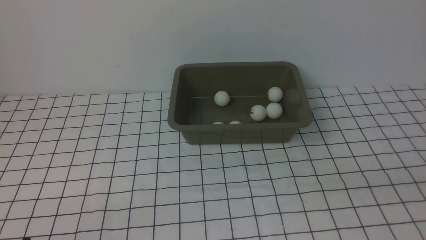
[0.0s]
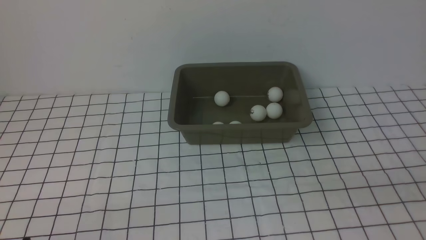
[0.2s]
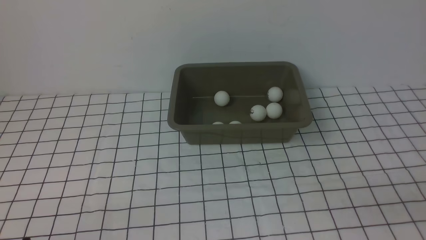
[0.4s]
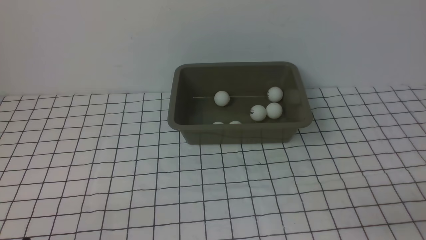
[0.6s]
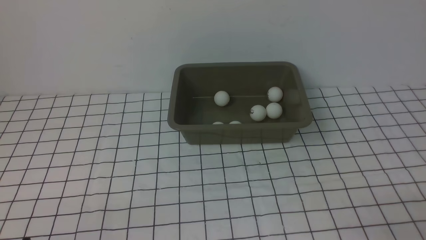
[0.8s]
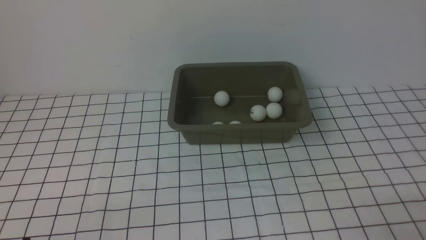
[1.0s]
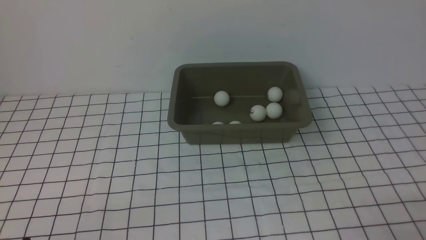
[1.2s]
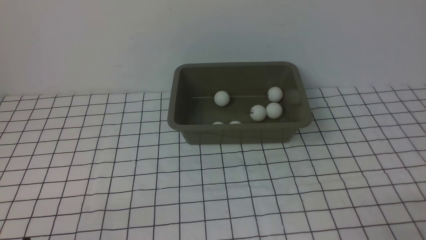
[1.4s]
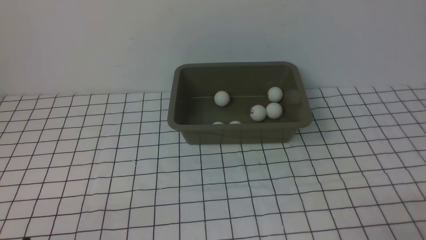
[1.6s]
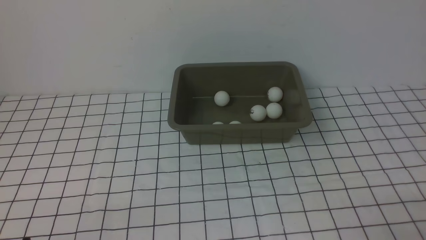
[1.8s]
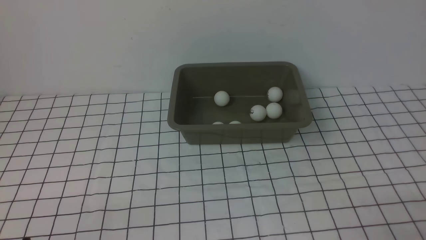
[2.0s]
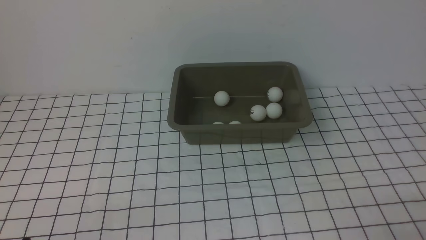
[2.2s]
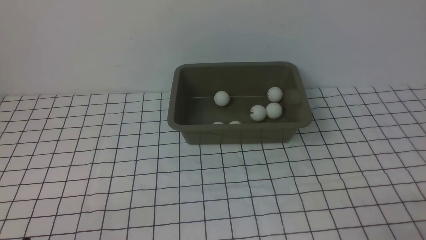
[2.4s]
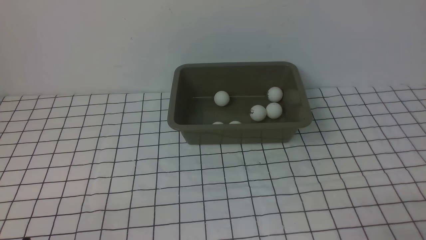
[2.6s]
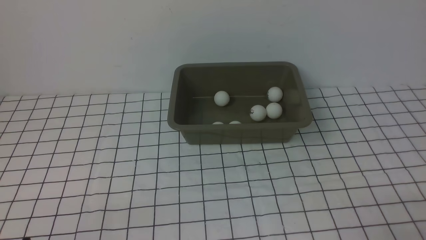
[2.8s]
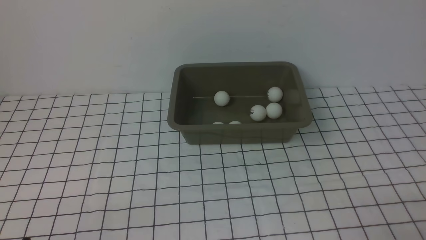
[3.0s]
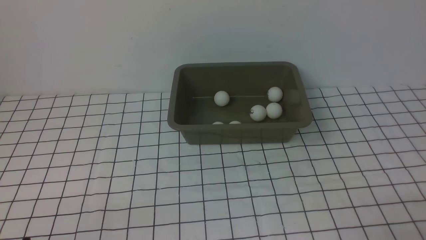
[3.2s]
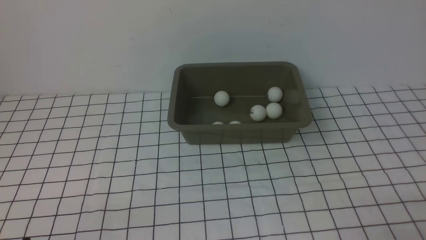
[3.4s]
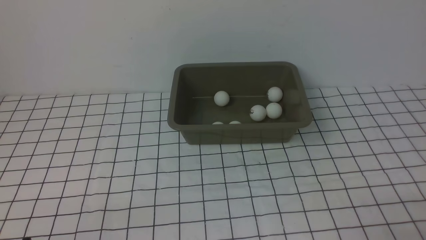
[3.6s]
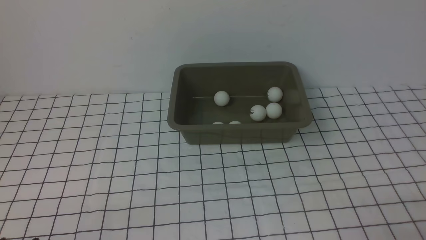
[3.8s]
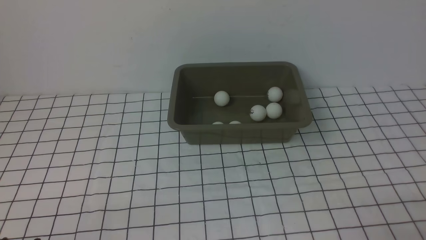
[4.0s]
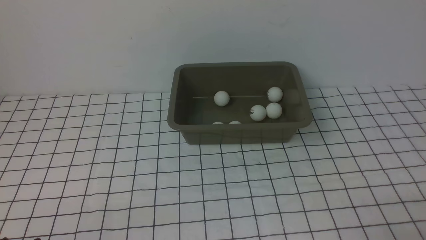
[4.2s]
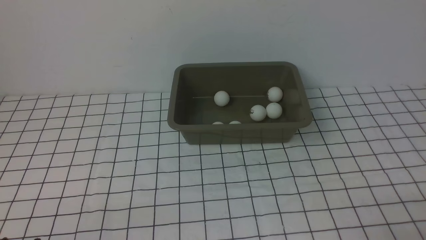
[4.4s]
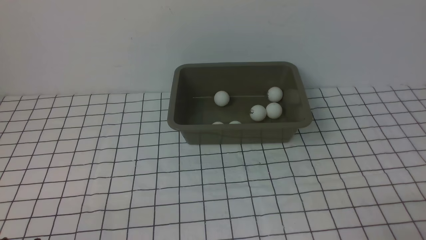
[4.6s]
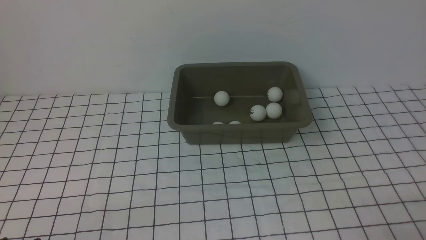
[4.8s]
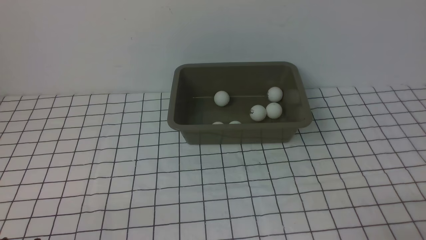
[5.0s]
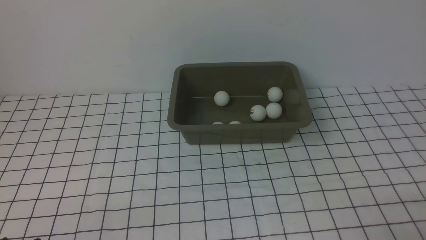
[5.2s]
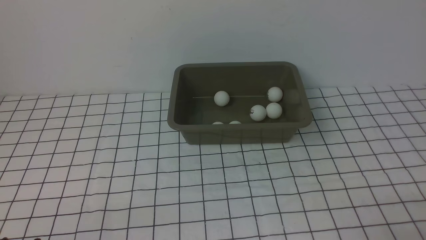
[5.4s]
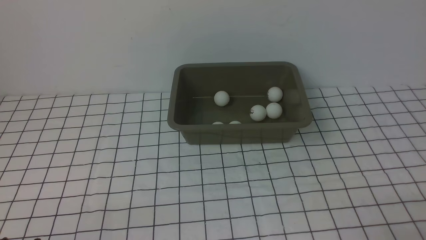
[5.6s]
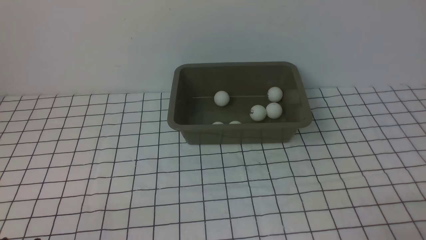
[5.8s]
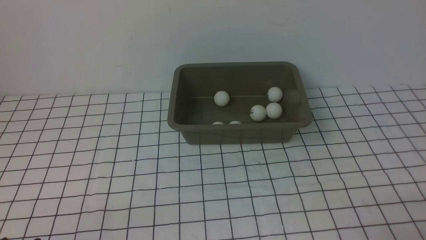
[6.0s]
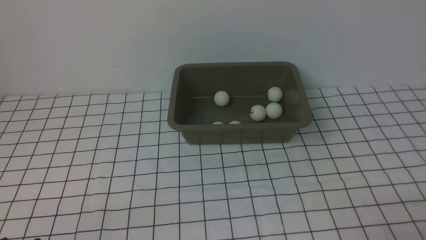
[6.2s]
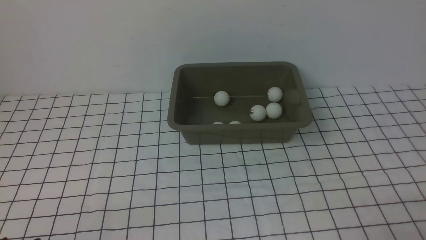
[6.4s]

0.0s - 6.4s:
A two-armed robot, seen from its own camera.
1.6s - 6.4s: The two grippers keep their place.

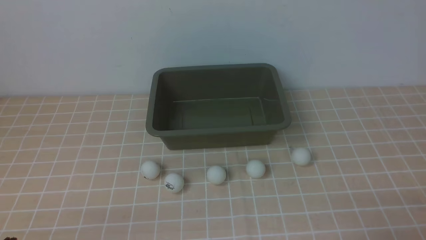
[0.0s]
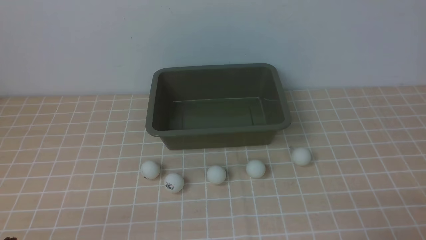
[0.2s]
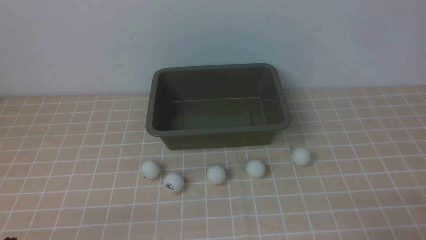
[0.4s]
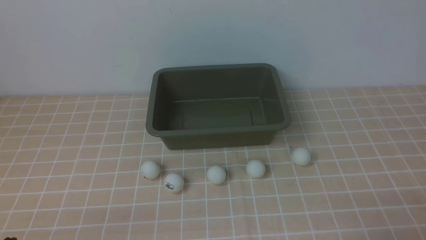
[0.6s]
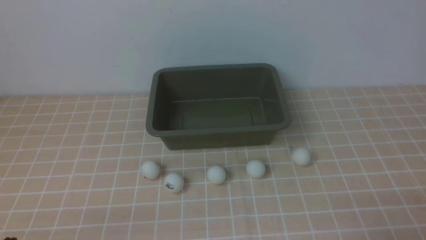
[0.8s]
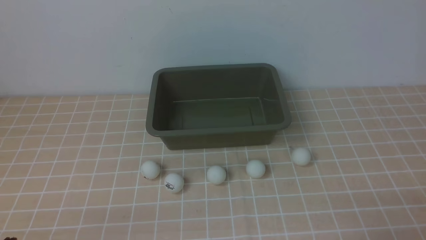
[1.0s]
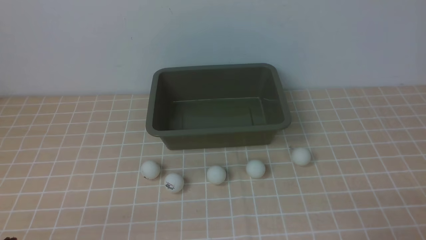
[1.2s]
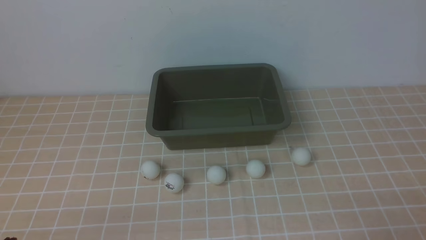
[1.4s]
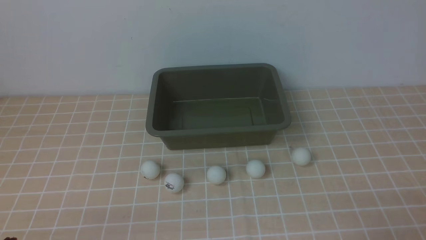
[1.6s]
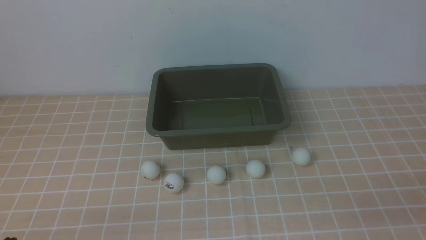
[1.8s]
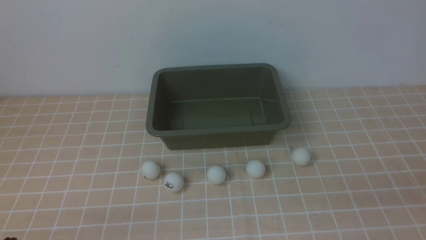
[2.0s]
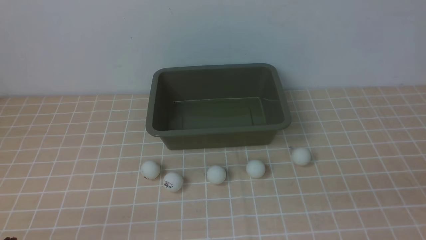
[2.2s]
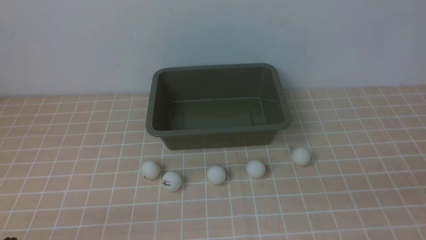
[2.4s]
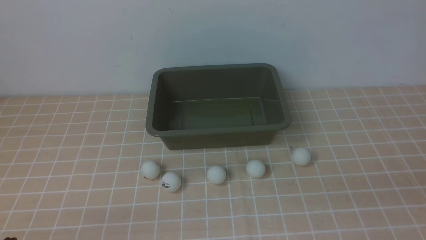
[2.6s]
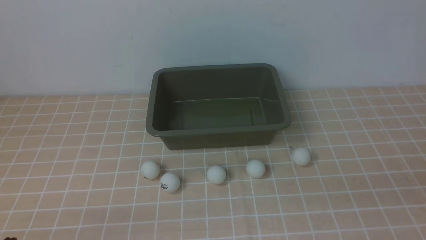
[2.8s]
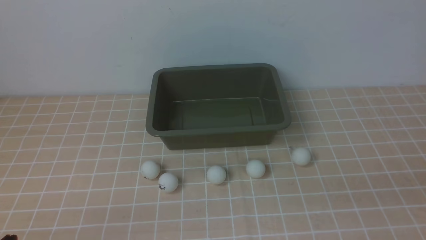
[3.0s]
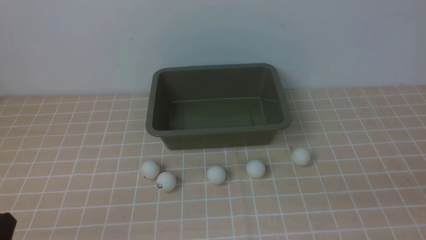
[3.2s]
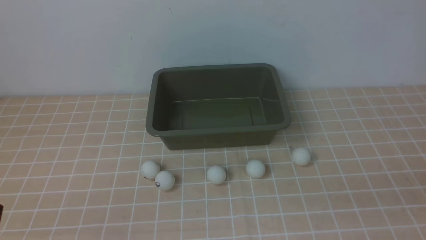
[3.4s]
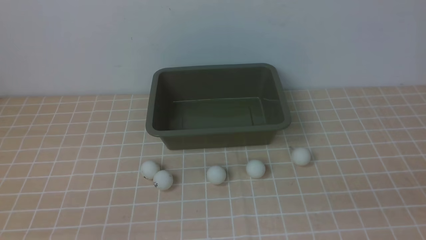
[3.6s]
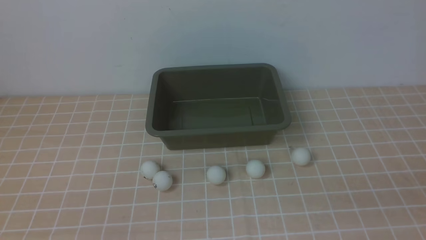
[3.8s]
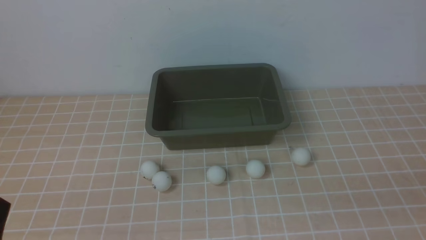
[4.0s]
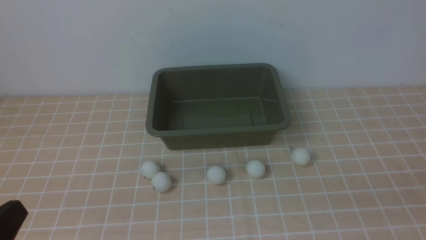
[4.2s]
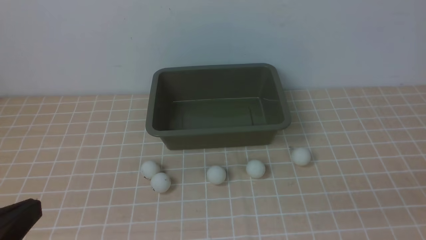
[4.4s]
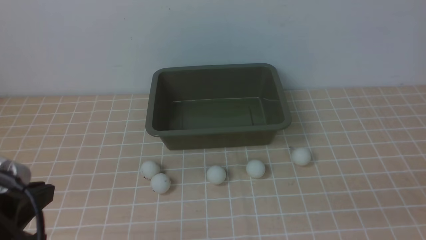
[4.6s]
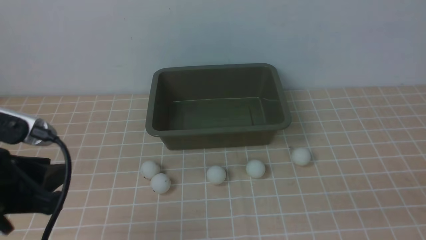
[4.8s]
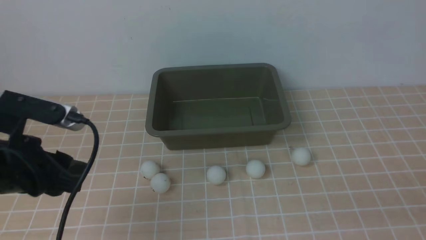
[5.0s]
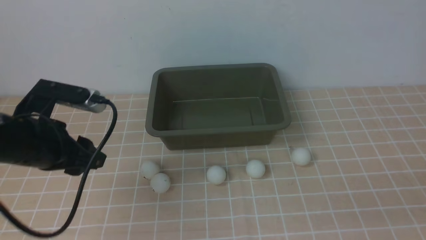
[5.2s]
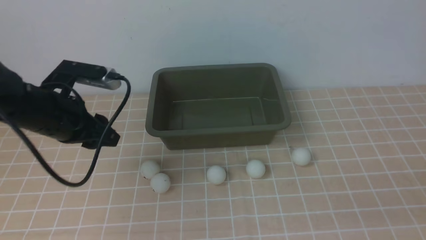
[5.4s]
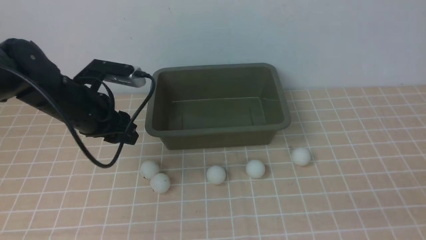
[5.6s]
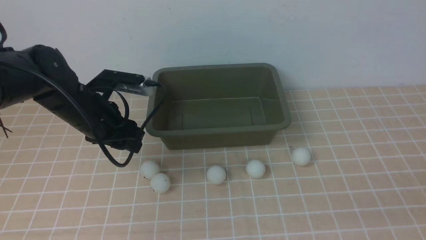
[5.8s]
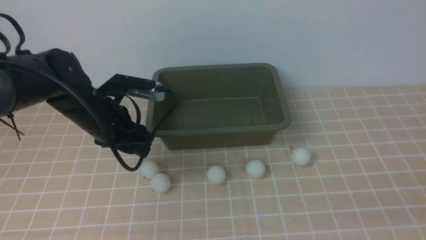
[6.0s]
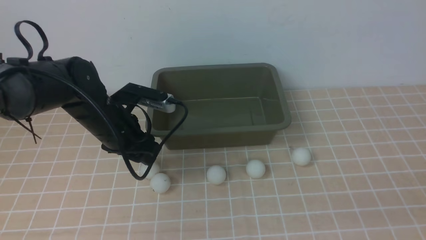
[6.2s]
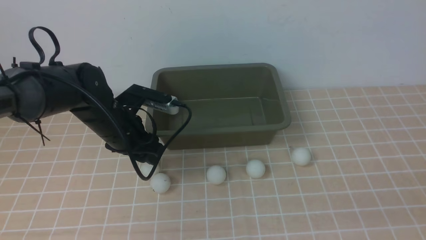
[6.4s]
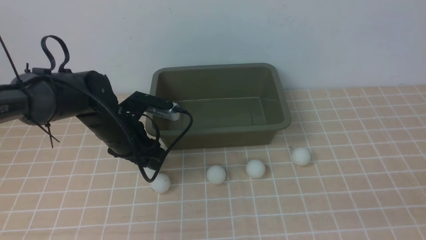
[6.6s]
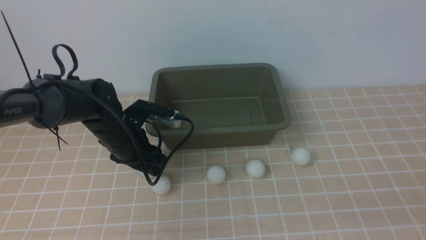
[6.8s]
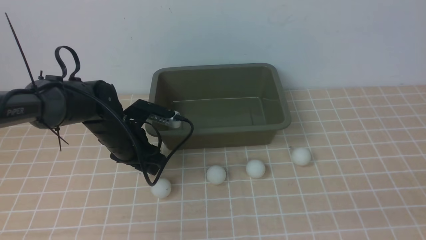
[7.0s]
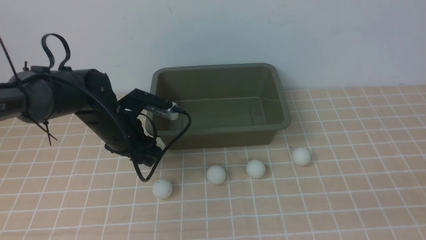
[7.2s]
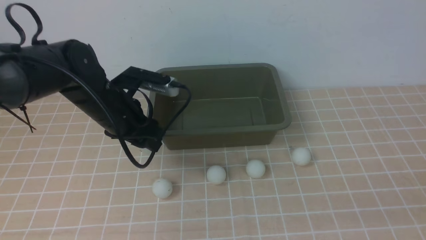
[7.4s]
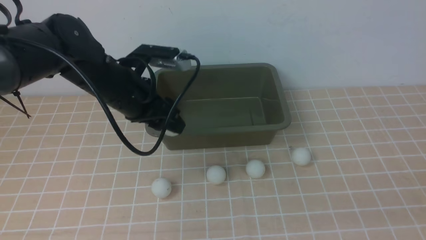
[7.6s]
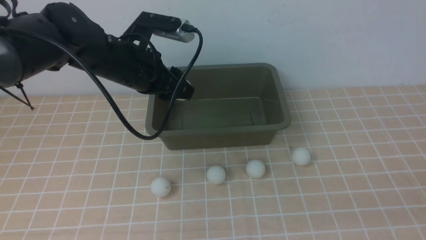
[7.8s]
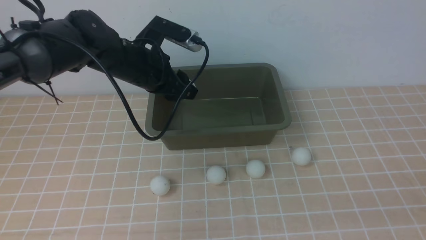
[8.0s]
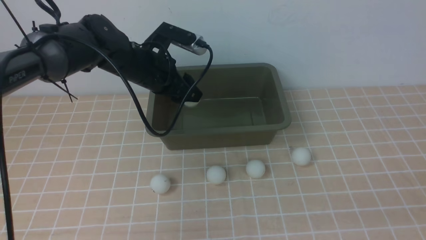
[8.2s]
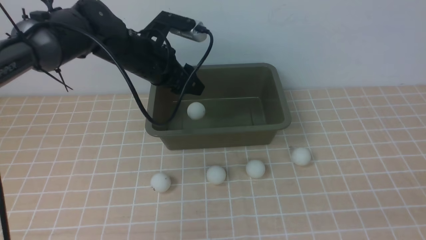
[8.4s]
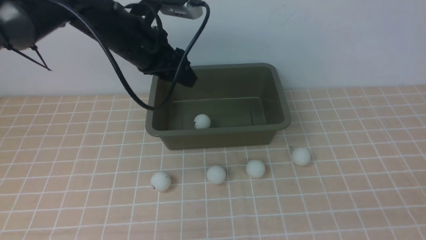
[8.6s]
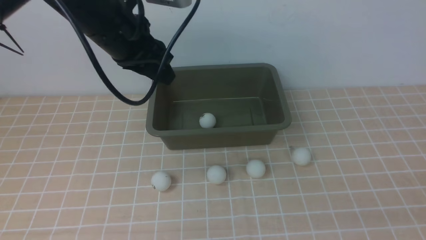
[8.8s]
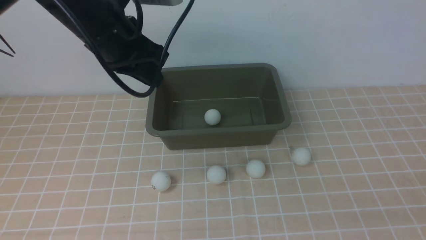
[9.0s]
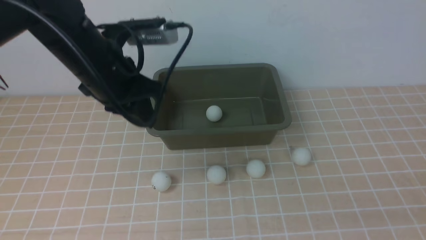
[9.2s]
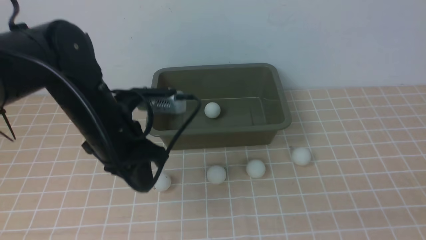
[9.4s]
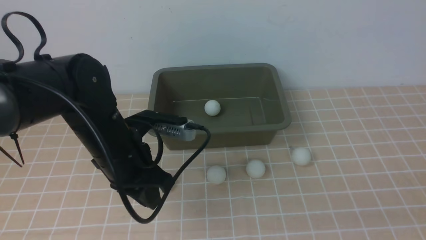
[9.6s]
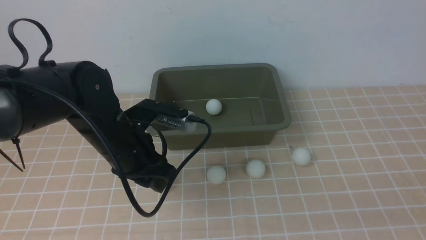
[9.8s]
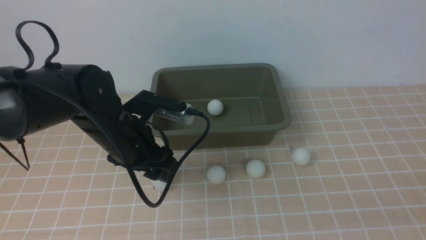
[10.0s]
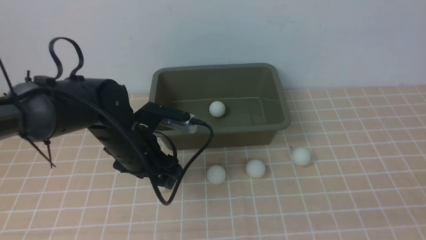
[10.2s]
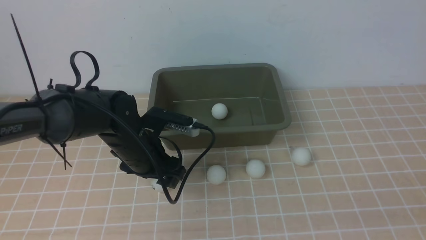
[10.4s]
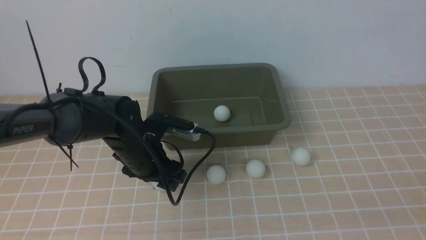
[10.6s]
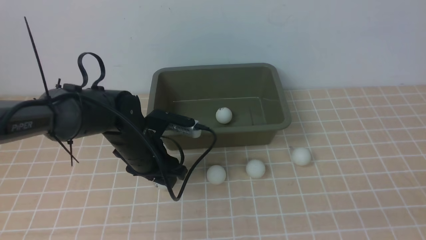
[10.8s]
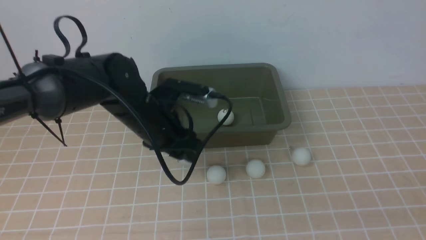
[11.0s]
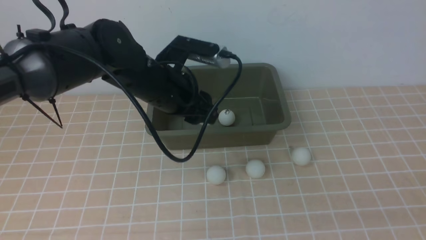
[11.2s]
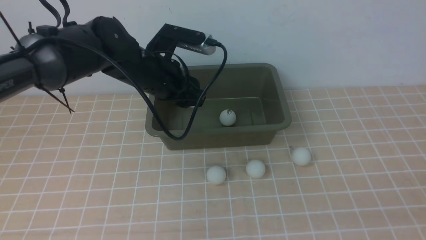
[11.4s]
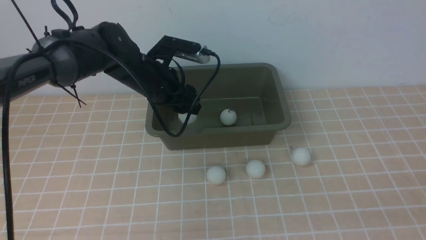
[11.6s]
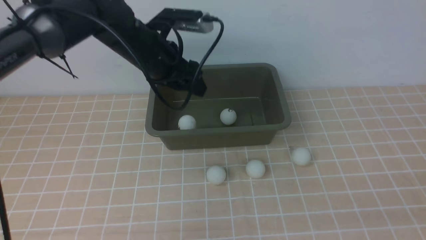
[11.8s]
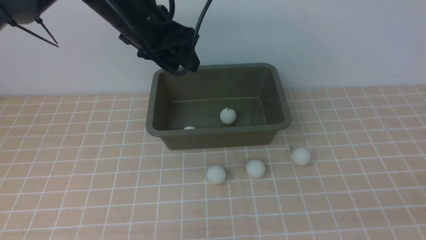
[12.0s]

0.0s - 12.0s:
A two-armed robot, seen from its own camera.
Step, 0.0s - 7.4s: use the left arm to clamp the table tennis ball closest to it.
Step, 7.6s - 8.6s: use the left arm to put the table tennis ball into the box.
Step, 9.0s - 11.2s: use the left arm to clamp the table tennis ball closest to it.
3.0s - 4.4s: The left gripper shifts some 10 cm upward.
4.4s - 6.0s: The left gripper shifts some 30 cm forward, and opens its fingers.
6.0s - 7.6s: The left gripper travels upward by approximately 5 cm.
7.6s - 9.0s: The left gripper shifts about 10 cm upward, and closes up.
9.0s - 10.4s: The left gripper is displaced downward by about 20 cm, and opens.
10.4s - 12.0s: The left gripper travels upward by about 20 cm, and closes up.
